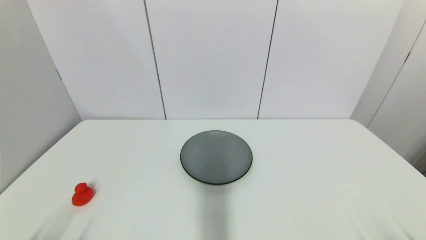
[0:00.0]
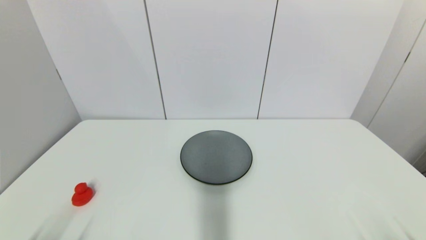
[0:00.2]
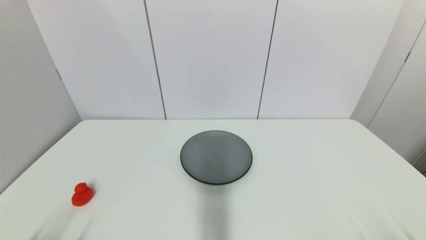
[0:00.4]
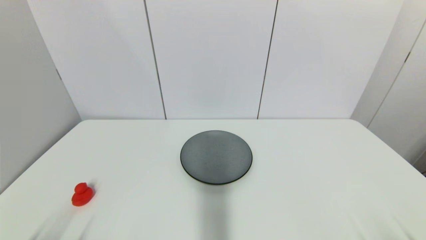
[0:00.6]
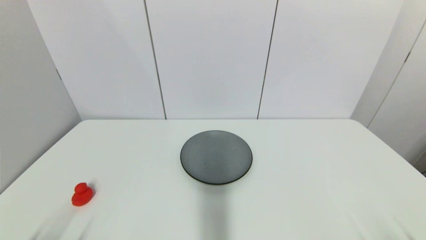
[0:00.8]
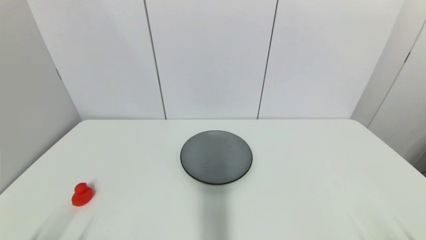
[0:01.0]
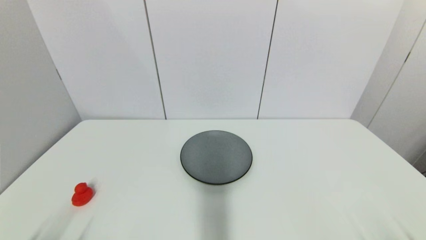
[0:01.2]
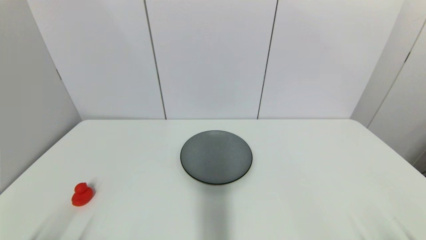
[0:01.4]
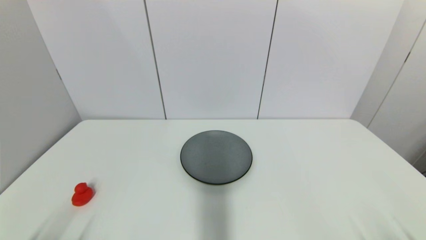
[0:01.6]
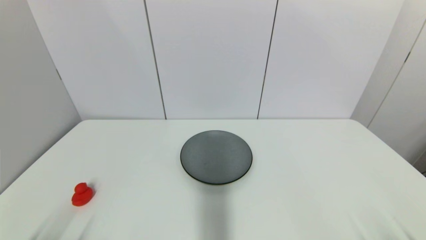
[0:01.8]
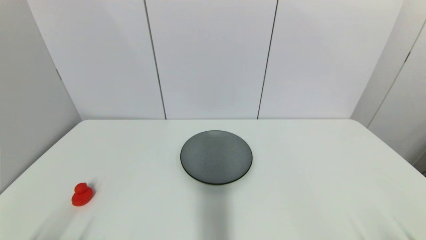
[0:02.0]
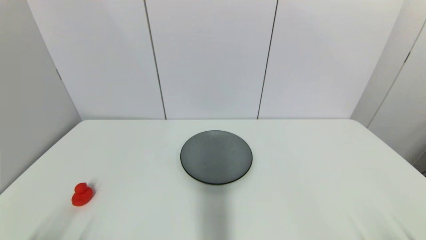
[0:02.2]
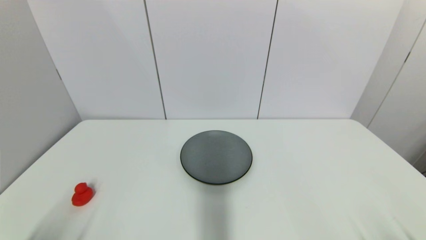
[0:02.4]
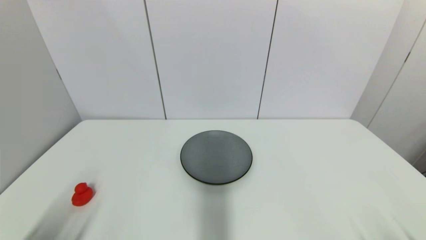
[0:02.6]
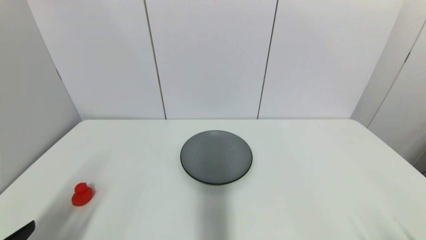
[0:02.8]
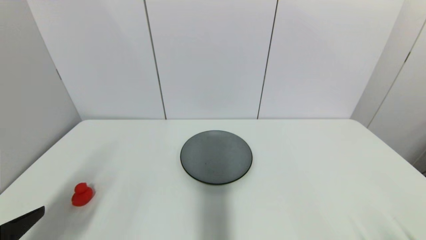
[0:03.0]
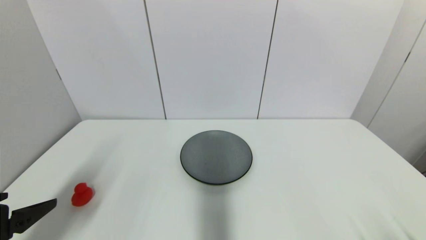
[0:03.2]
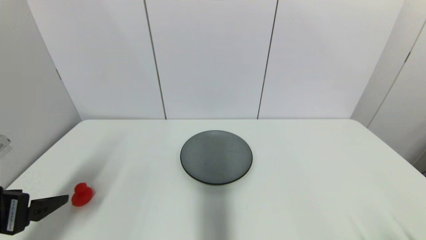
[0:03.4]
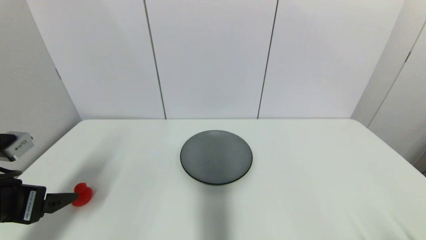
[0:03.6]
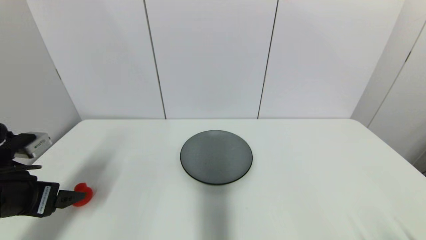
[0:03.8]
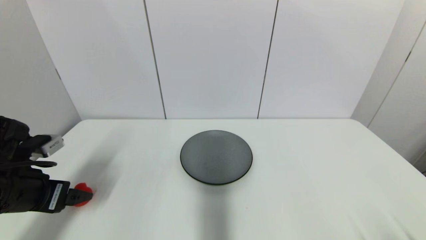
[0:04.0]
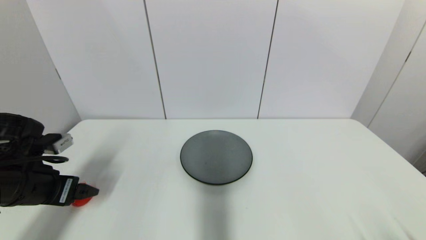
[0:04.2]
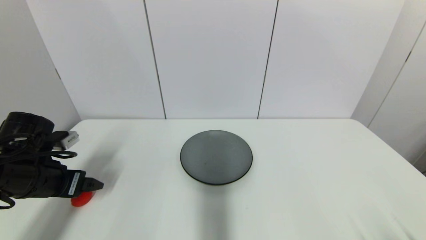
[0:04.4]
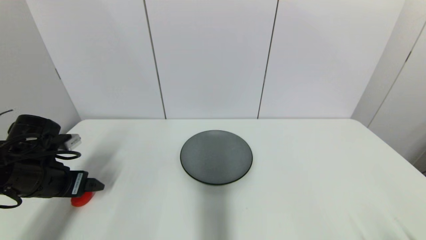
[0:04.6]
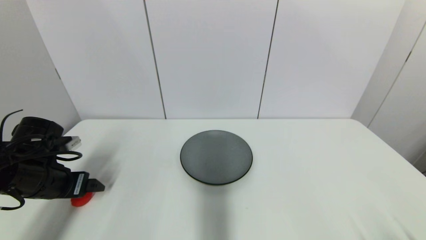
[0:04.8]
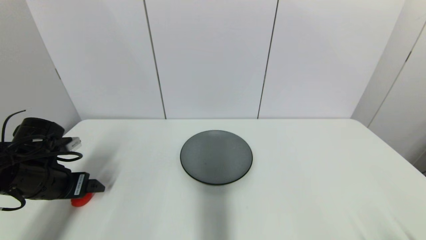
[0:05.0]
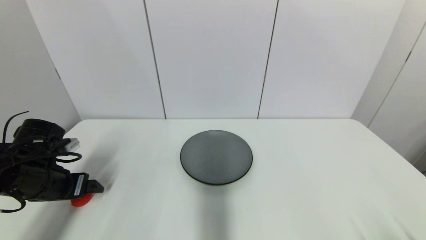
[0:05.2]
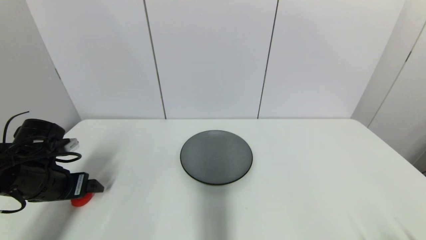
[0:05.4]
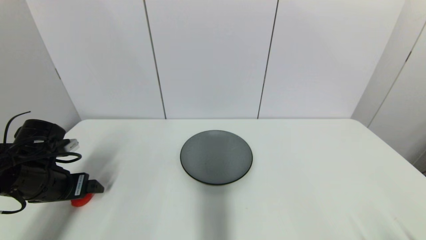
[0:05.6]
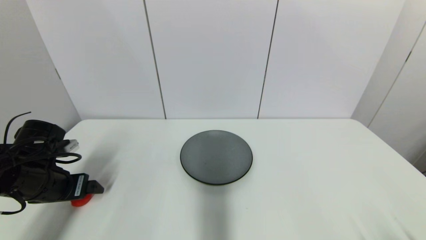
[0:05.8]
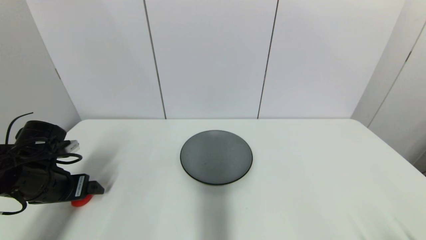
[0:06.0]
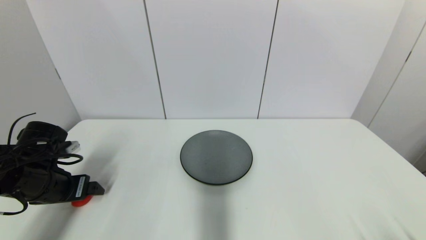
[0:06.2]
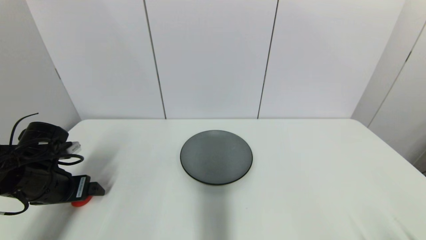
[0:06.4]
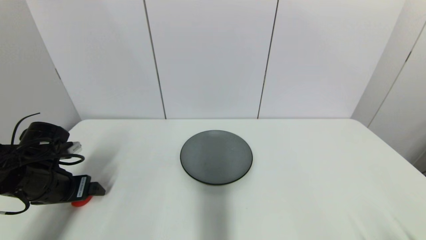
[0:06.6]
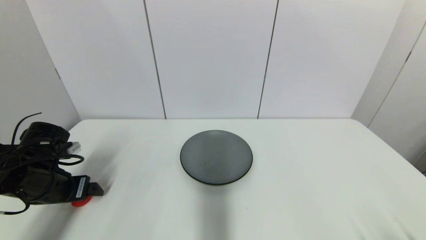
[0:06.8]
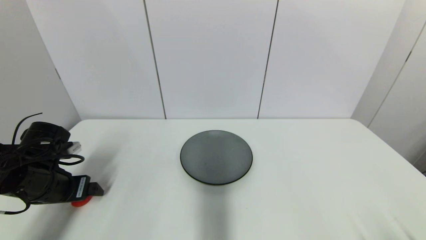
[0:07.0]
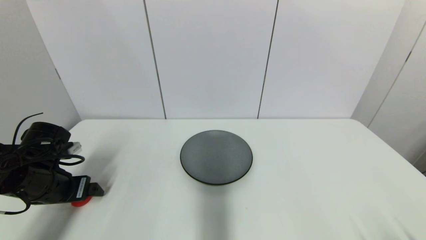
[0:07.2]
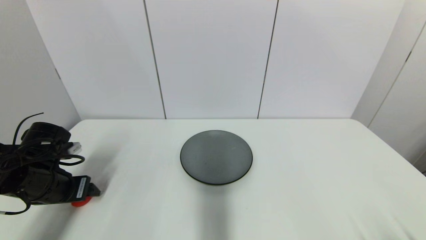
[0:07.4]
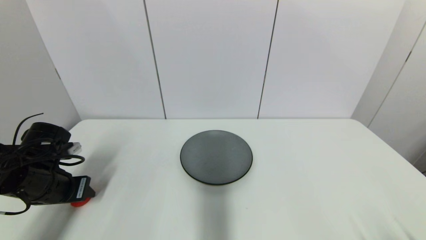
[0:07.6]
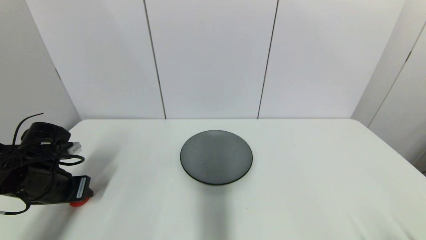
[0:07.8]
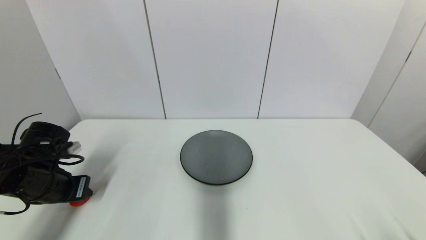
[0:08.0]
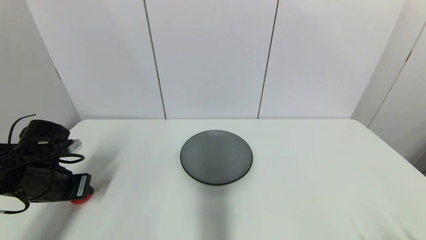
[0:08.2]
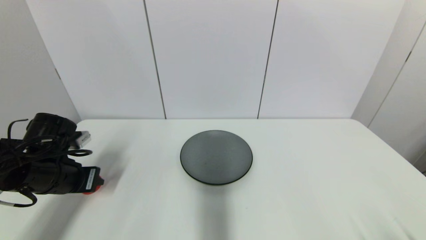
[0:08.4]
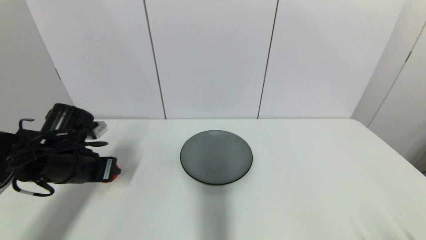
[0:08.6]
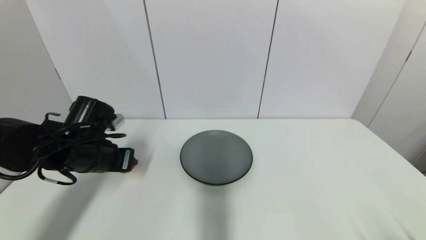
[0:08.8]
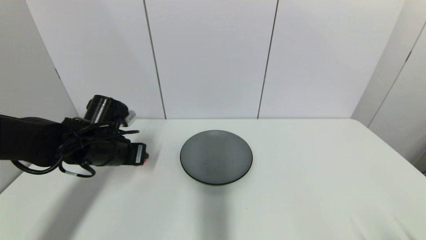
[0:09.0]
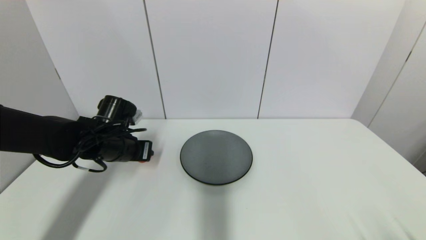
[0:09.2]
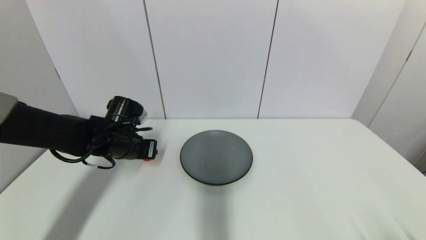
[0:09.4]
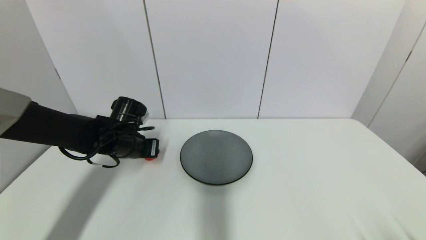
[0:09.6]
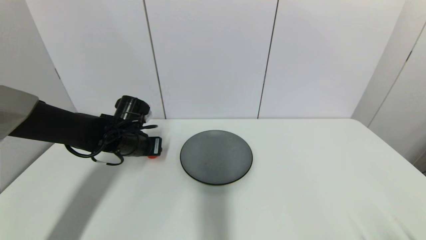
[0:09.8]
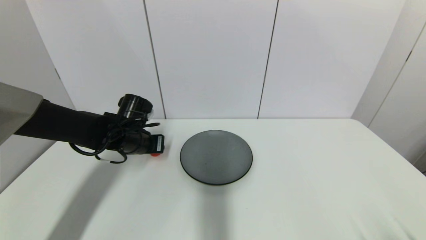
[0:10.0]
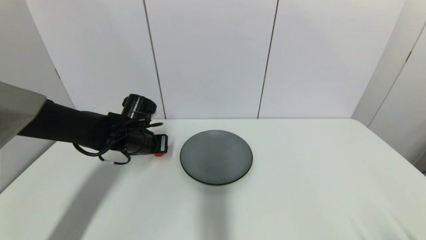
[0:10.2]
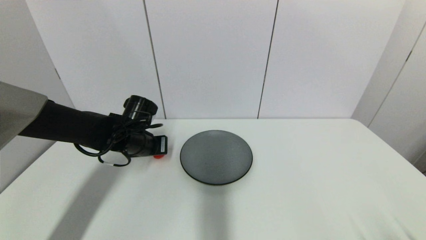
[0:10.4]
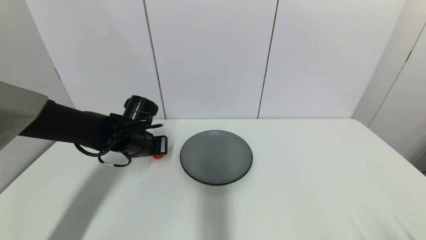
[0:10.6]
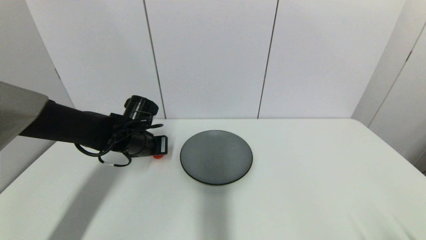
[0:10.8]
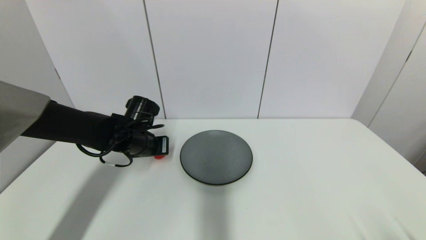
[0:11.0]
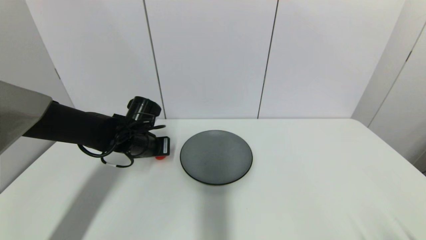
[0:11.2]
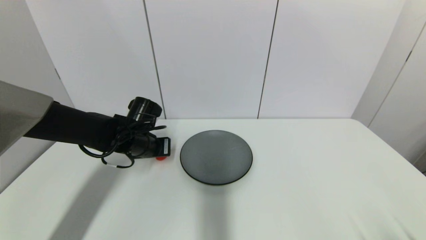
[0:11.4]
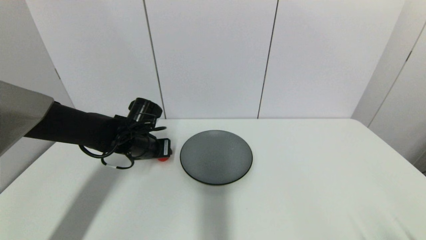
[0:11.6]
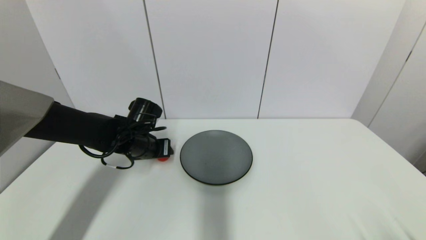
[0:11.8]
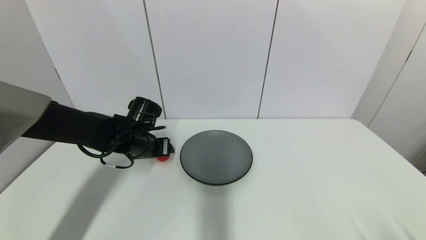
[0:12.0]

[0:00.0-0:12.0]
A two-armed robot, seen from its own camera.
Step, 0:02.8 to 0:08.6: Grasp the red duck with left gripper.
0:00.0 to 0:01.6: Both grippers stay put.
0:01.6 to 0:03.0: The left gripper heads upward and forward, covering about 15 cm.
0:03.0 to 0:04.4: The left gripper goes roughly 15 cm forward.
0:04.4 to 0:06.0: The grippers move only a little.
0:06.0 to 0:07.6: The left gripper closes its fingers.
0:07.6 to 0:09.0: The left gripper is displaced to the right and forward by about 10 cm.
0:09.0 to 0:10.4: The left gripper goes approximately 5 cm forward.
0:10.4 to 0:12.0: The left gripper opens.

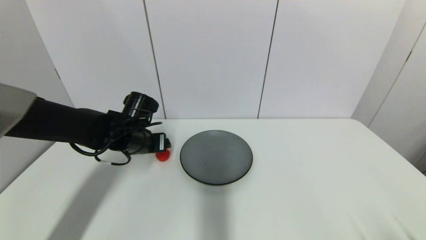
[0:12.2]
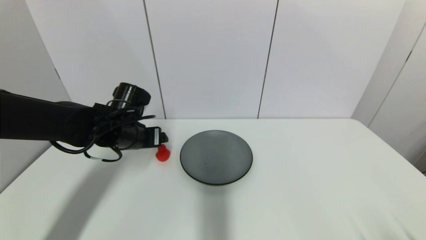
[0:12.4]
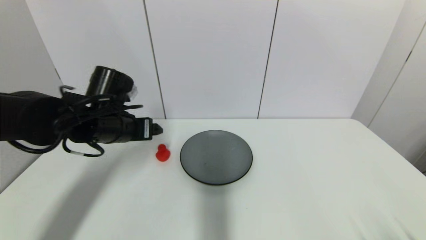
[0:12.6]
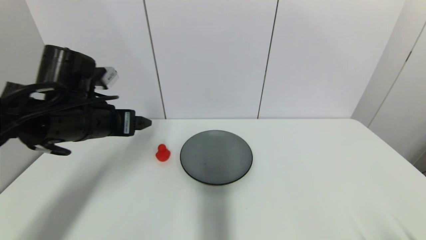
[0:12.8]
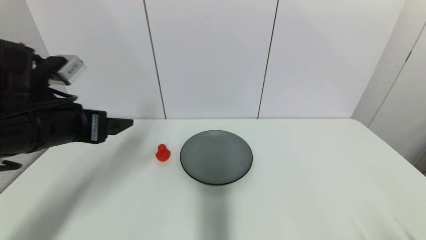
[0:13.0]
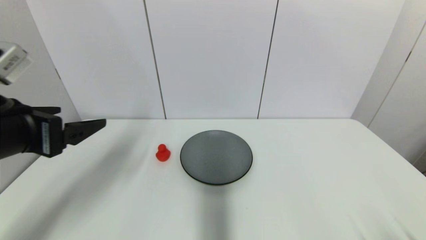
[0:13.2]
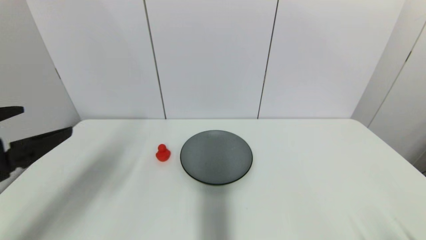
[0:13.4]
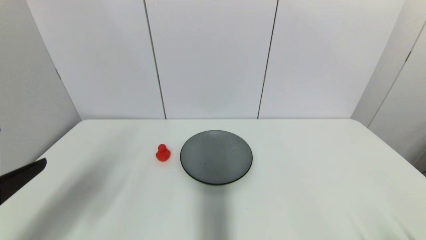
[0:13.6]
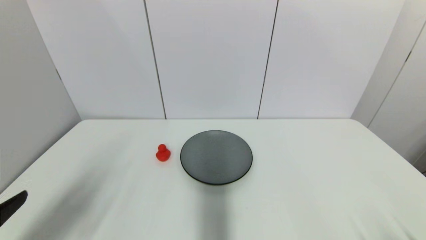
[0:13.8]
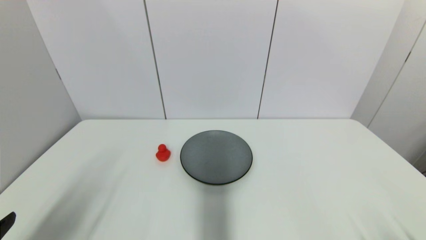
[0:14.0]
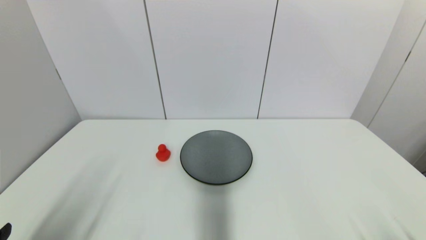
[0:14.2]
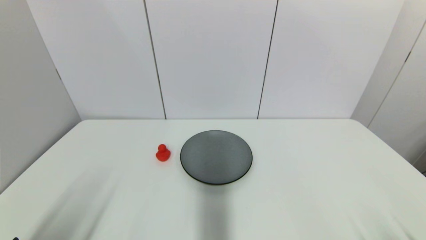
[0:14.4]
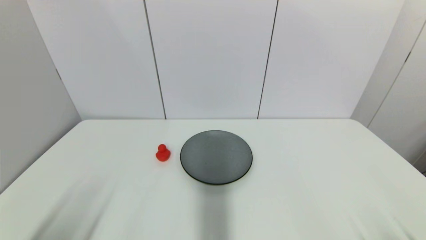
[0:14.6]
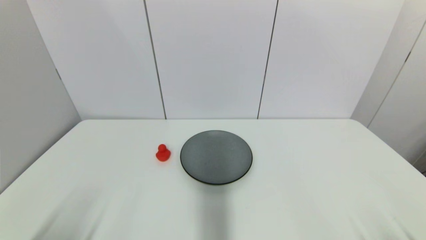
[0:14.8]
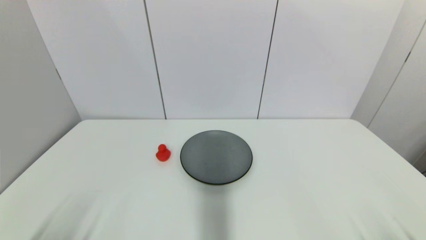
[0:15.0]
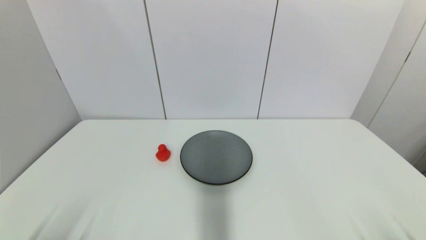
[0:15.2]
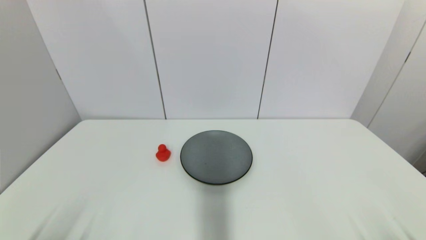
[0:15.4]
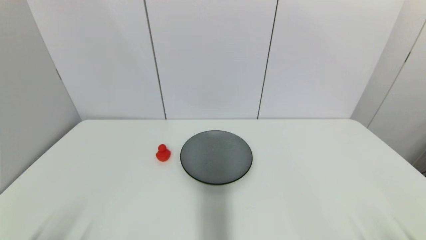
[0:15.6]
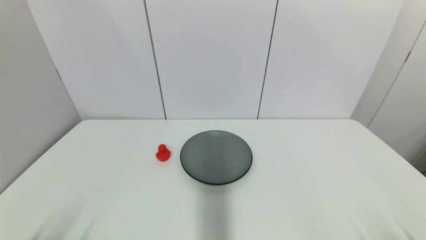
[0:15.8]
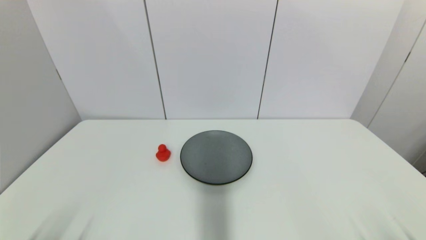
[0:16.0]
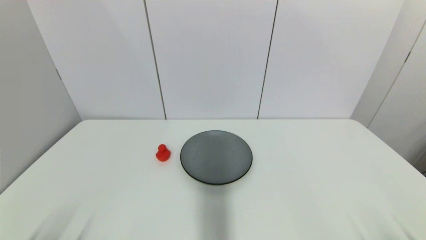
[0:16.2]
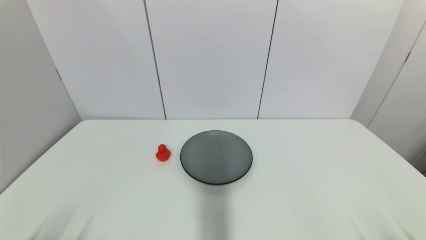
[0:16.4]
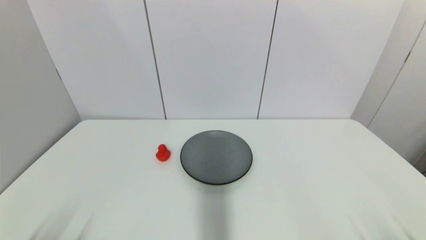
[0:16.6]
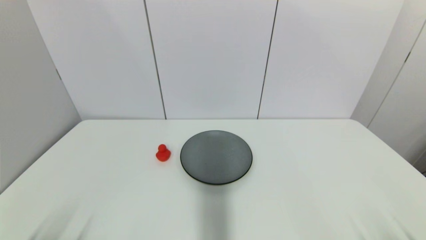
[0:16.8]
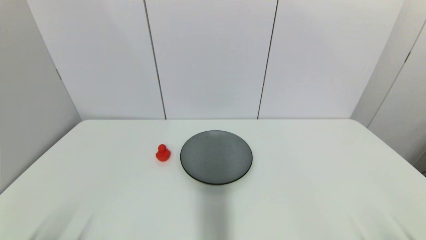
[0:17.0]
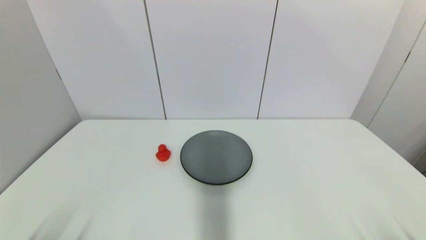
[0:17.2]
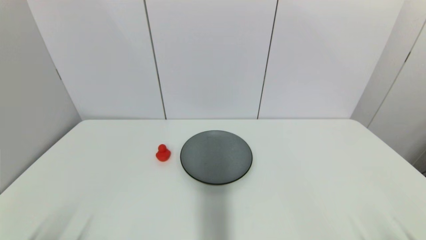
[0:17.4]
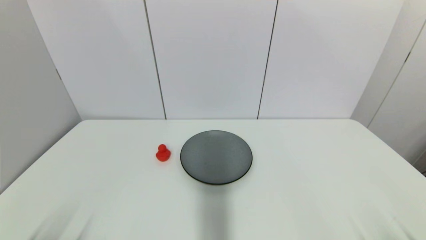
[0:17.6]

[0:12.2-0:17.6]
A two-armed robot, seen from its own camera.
0:12.2 to 0:13.6: The left gripper heads backward and to the left, covering roughly 30 cm.
0:13.6 to 0:15.0: The left gripper is displaced downward and backward by roughly 20 cm.
0:16.2 to 0:17.6: The two grippers keep their place.
